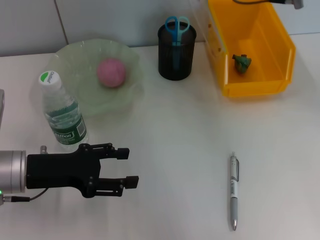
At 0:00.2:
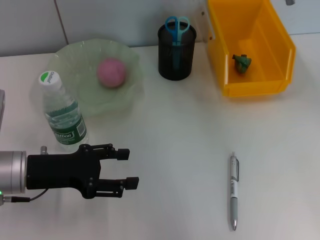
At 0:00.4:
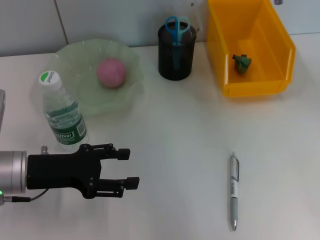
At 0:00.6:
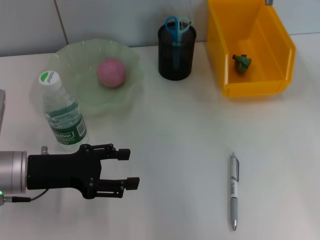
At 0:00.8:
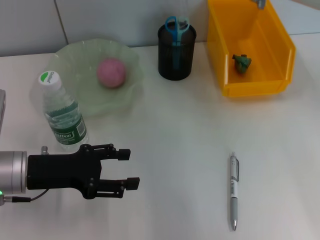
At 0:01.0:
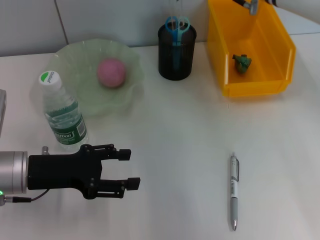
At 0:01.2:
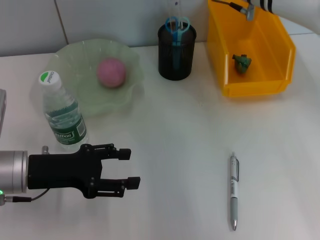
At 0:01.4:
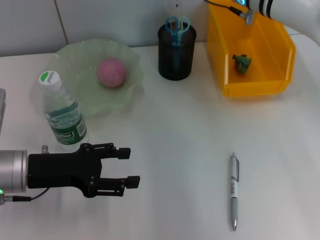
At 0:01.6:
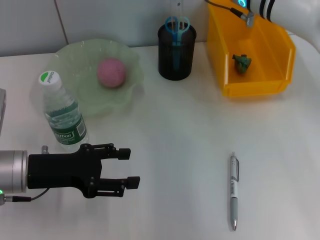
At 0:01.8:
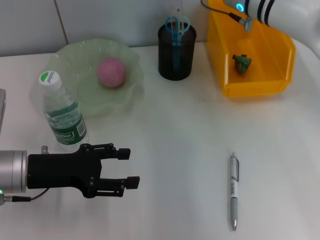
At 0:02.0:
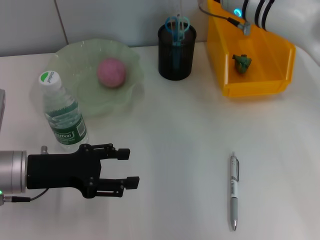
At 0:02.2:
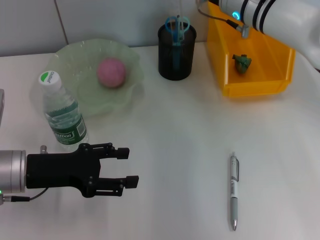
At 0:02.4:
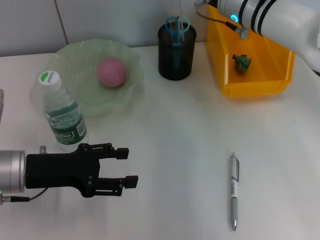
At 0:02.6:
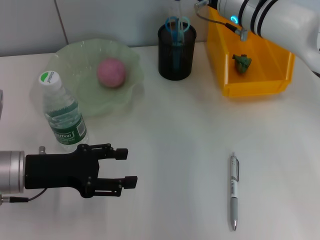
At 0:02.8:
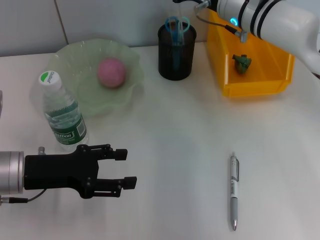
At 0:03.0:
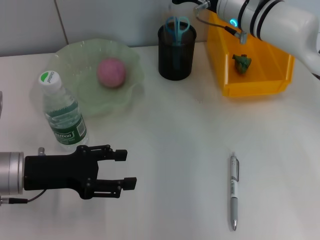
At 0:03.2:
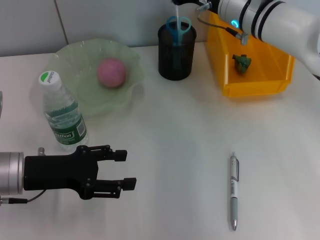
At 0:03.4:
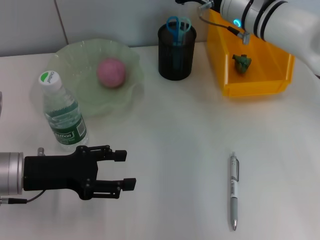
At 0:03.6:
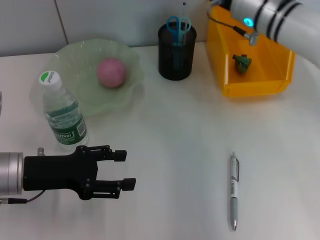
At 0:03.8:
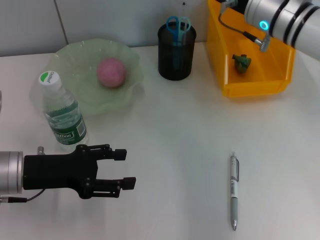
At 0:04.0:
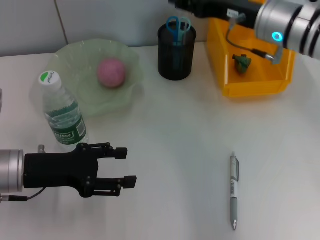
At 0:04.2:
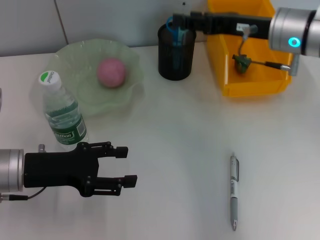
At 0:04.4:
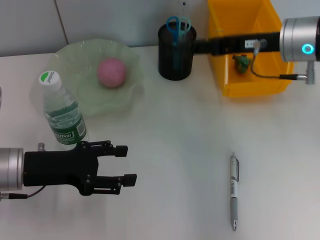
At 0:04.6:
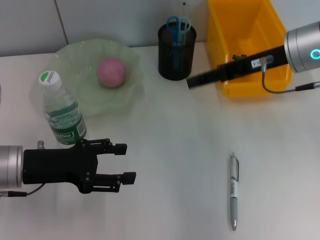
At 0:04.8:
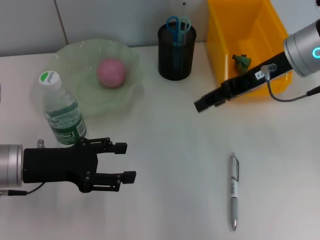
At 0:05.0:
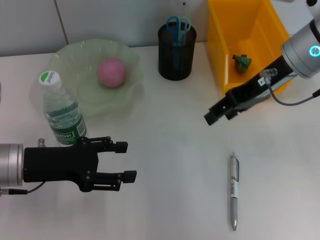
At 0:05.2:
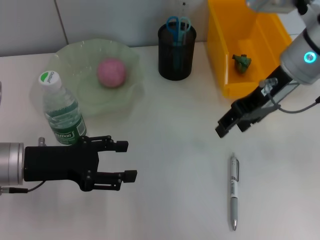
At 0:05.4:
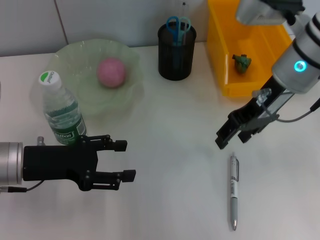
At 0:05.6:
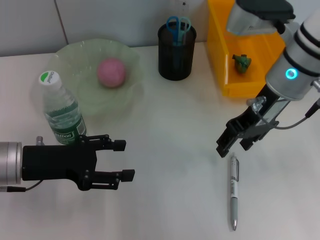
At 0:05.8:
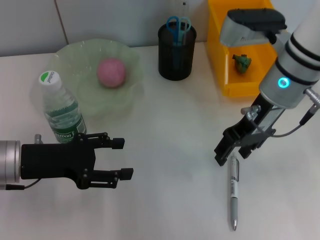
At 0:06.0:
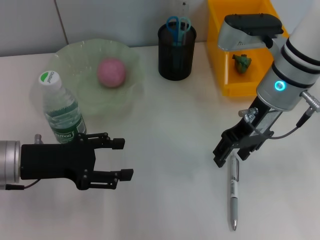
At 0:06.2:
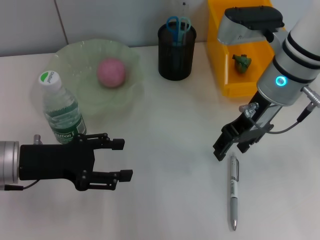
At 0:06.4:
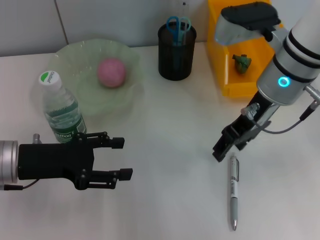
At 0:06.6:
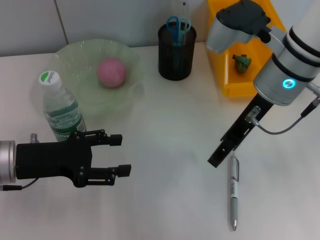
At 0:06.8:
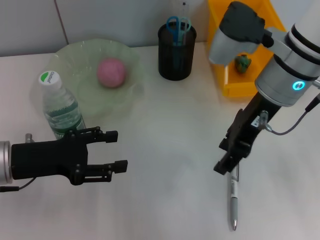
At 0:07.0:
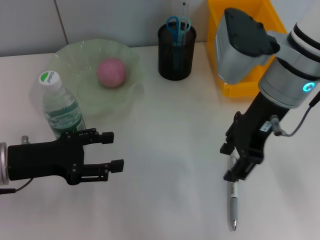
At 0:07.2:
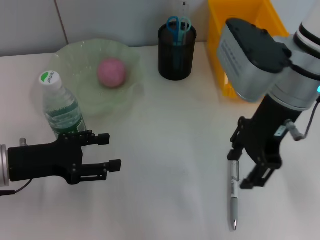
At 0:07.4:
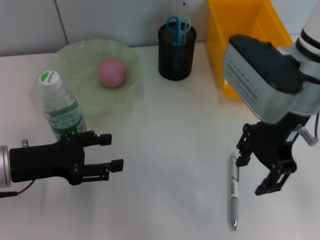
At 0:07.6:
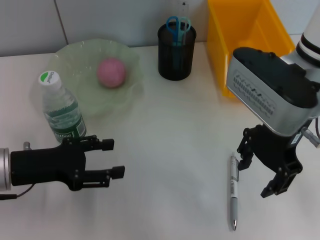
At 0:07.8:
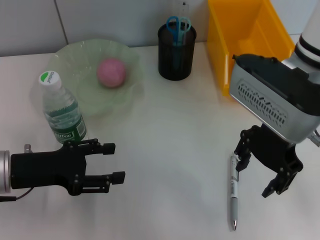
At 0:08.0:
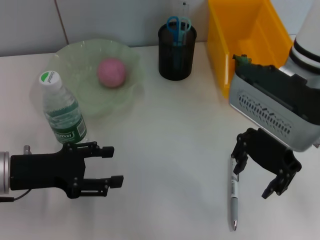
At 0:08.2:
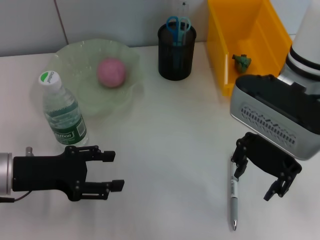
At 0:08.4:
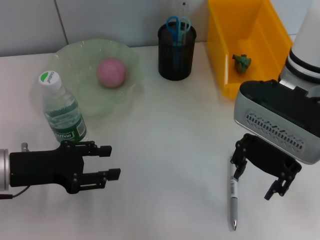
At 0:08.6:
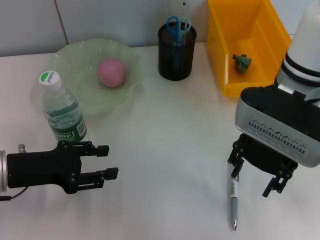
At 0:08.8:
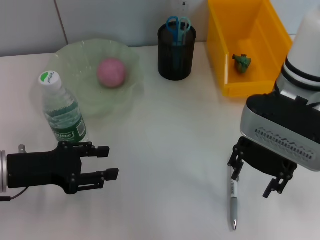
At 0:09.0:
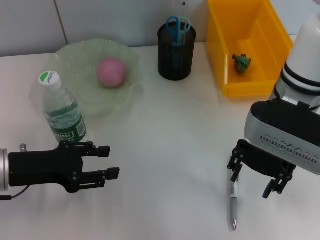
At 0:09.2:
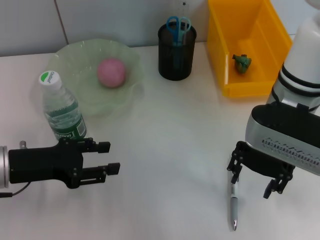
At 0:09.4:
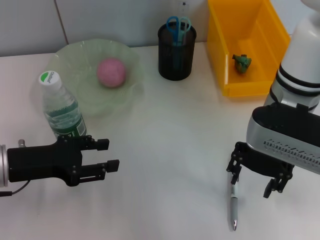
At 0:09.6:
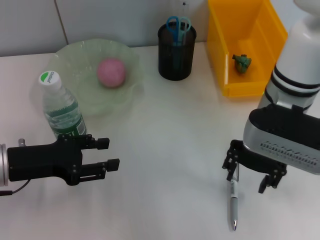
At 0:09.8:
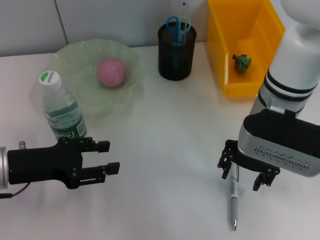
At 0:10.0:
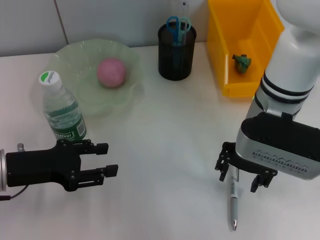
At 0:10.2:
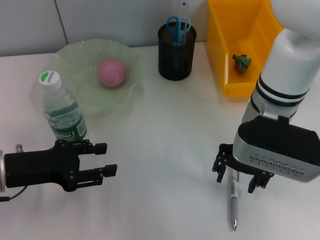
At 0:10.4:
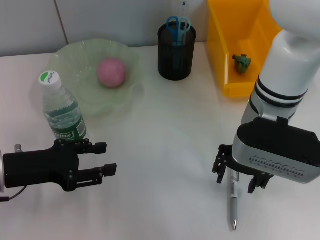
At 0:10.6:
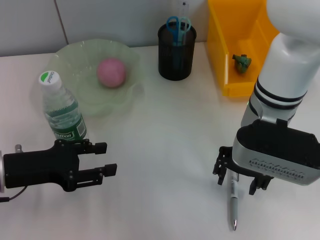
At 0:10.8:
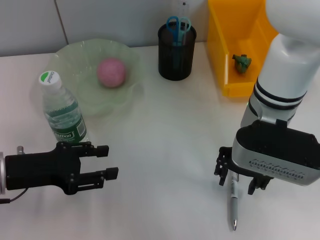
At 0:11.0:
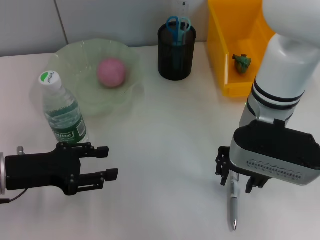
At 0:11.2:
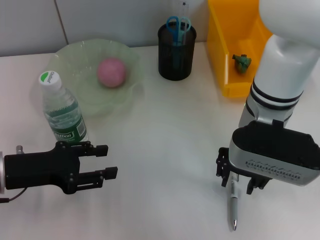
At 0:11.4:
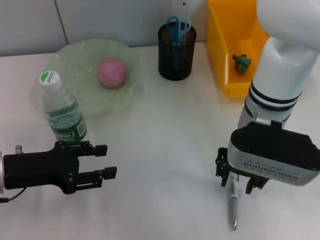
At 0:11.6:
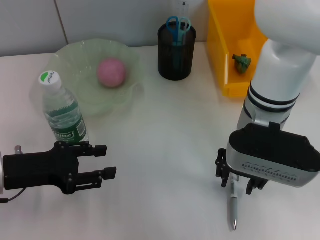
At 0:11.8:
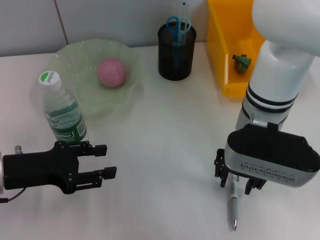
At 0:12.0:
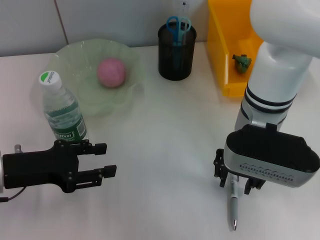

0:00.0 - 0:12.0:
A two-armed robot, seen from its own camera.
Step, 0:00.0 - 0:03.6: Place the ruler into the pen holder with the right hand.
0:00.0 - 0:01.6: The right gripper heads downward, covering some 10 cm.
0:01.6 - 0:03.0: The grippers make only small movements.
0:03.0 - 0:04.4: The right gripper heads backward and to the right, covering some 10 cm.
0:04.4 - 0:06.0: The right gripper goes about 5 cm to the left.
0:06.0 - 0:07.6: The right gripper ends up about 5 cm from where it was.
0:09.0 - 0:10.4: The grippers make only small movements.
0:10.4 - 0:12.0: The two grippers keep their place.

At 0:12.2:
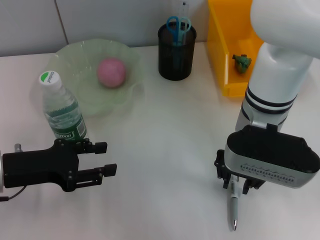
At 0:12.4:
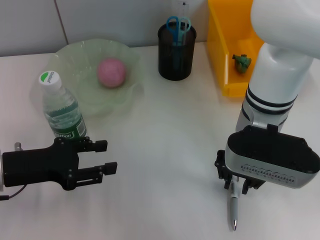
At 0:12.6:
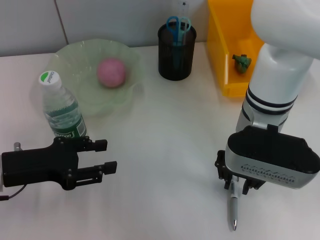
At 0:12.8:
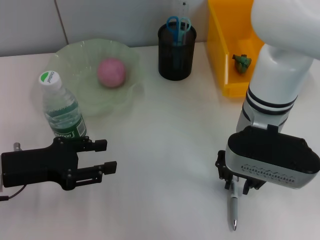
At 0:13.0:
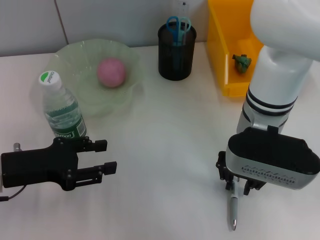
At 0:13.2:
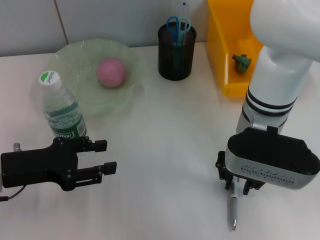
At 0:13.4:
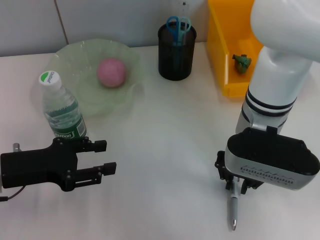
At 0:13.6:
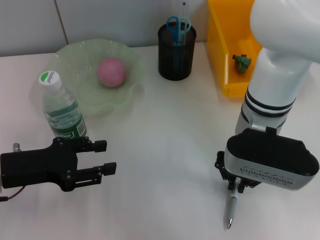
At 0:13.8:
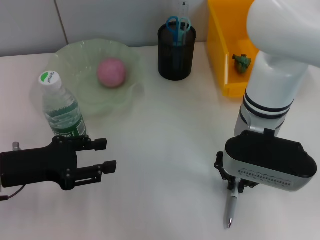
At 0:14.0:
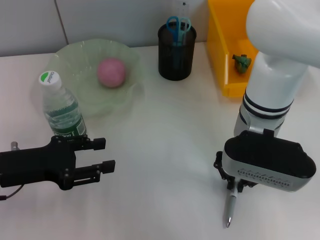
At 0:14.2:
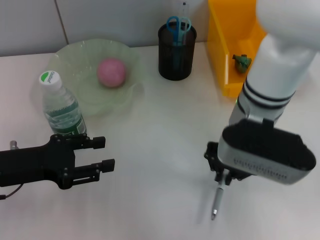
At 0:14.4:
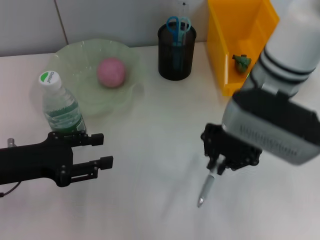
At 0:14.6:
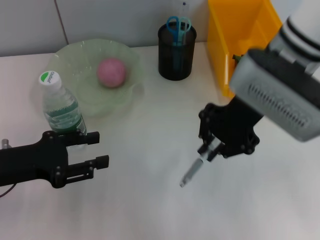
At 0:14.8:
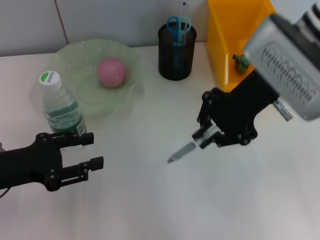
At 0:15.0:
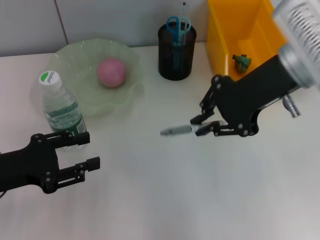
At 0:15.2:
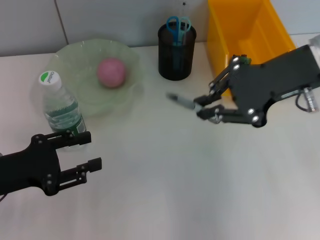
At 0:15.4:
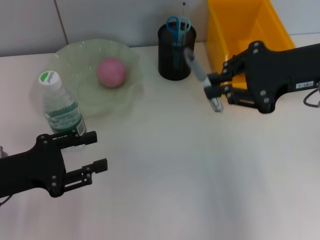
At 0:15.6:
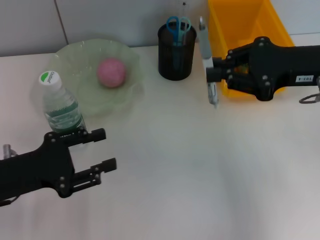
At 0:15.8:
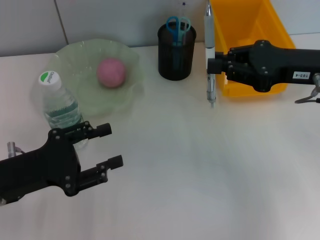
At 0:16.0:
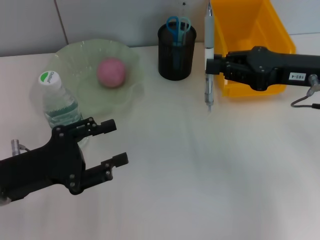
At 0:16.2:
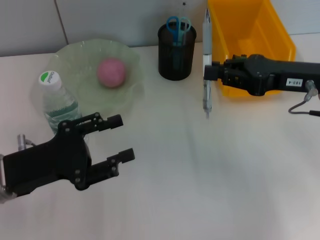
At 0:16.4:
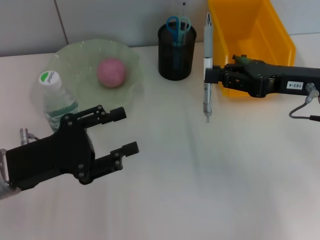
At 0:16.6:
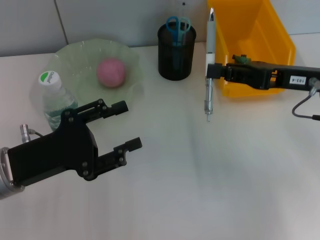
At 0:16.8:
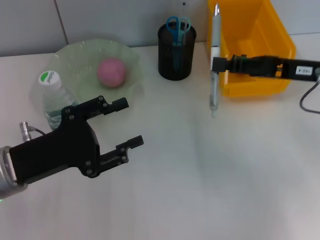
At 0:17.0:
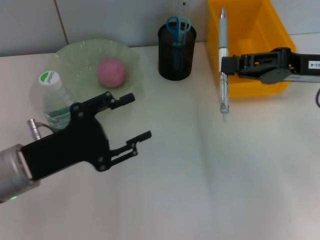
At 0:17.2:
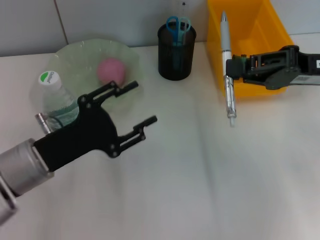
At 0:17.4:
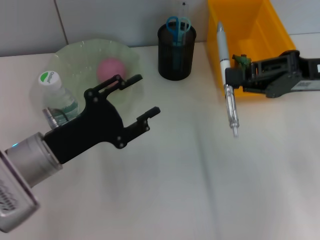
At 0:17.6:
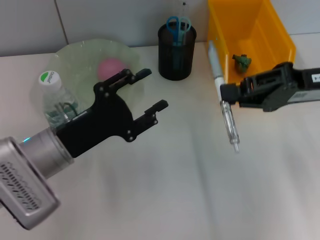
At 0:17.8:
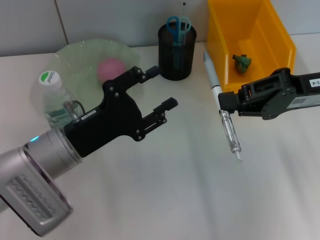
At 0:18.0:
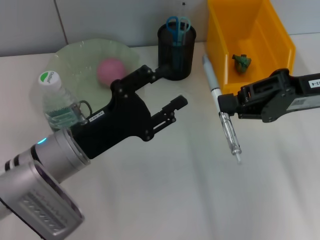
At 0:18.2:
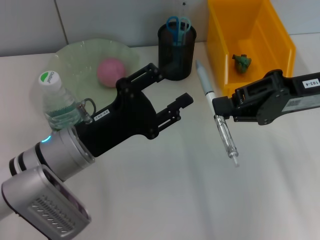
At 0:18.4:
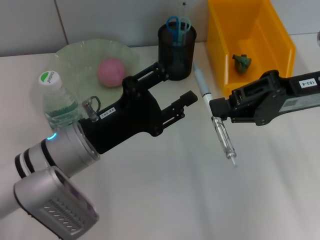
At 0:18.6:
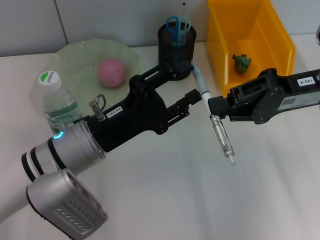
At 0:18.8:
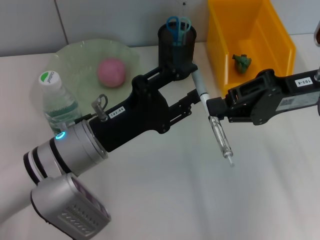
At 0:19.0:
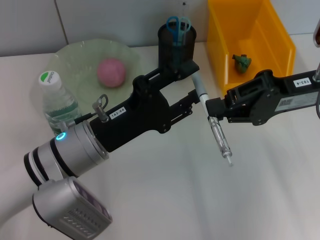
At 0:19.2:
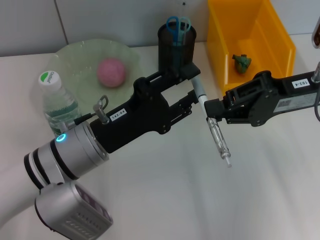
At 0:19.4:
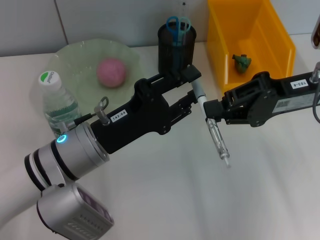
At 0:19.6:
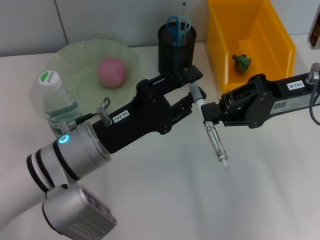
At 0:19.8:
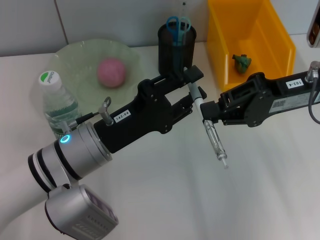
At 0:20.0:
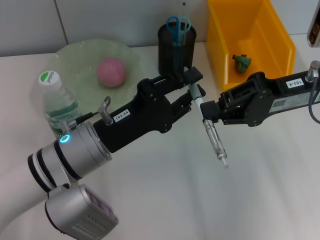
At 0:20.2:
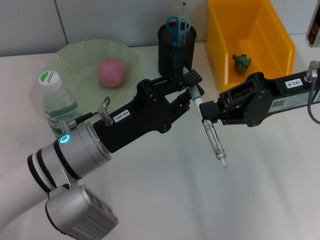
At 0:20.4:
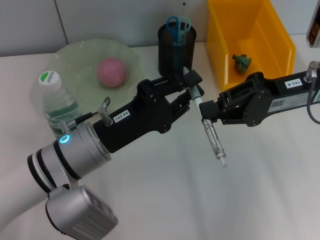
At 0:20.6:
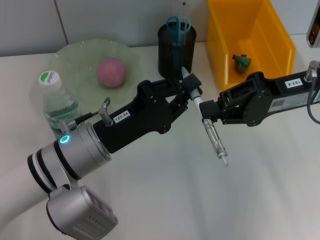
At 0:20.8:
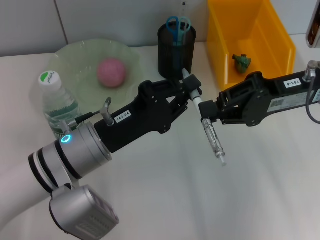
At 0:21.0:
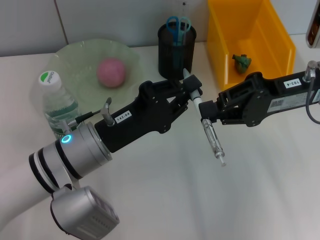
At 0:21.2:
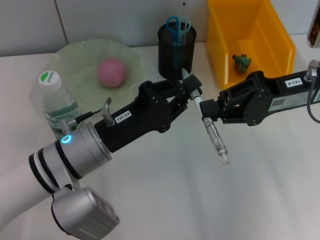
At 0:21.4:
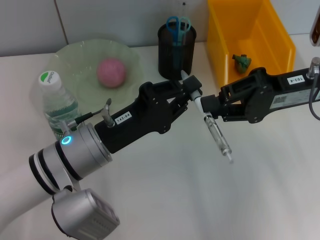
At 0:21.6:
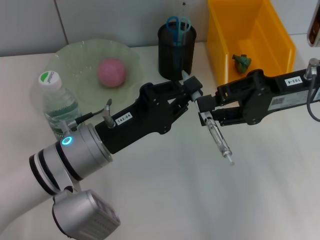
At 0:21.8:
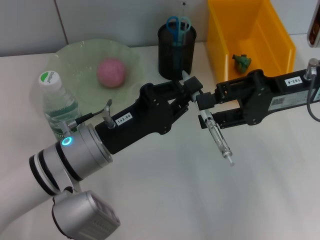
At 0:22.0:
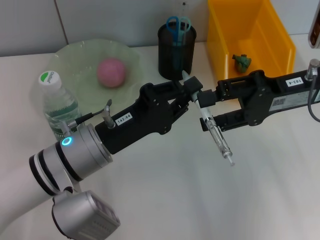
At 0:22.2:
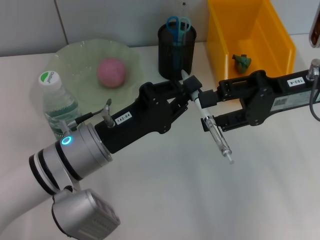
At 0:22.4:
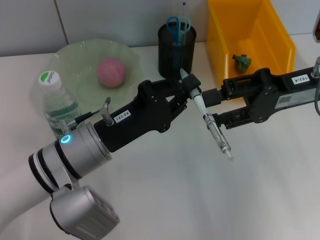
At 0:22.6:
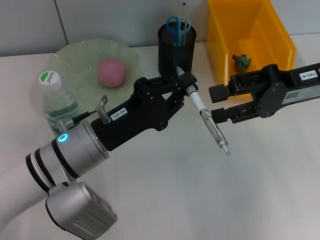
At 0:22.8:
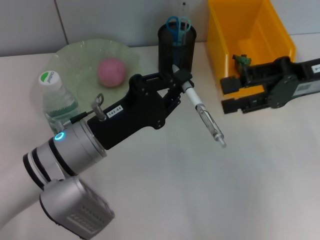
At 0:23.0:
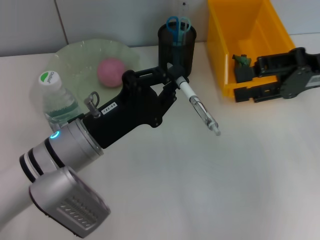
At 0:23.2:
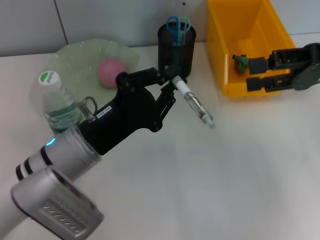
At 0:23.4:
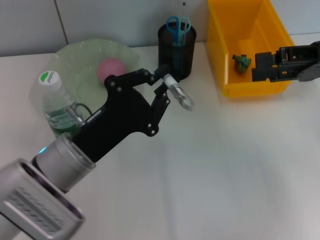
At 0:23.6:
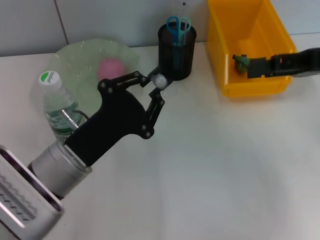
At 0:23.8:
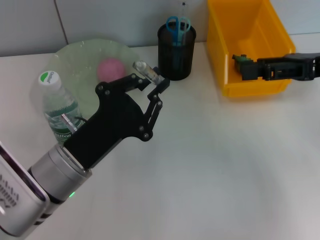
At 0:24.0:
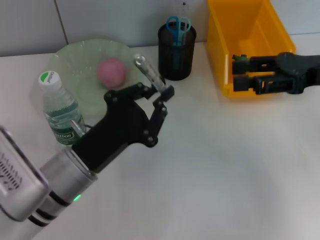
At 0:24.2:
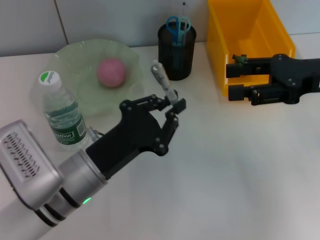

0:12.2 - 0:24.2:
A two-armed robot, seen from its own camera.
Step, 0:14.0 - 0:22.6: Pass the gray spring-action pen from the right hand to the left hand.
0:12.2 - 0:13.8: The right gripper closes.
0:13.8 - 0:15.2: The right gripper shifts approximately 15 cm upward and to the right.
0:15.2 - 0:16.6: The right gripper moves downward, some 10 cm; the left gripper goes approximately 5 cm to the right.
0:16.6 - 0:18.2: The left gripper heads to the right, covering some 10 cm.
0:18.2 - 0:19.8: The grippers stay close to where they were, moving slightly.
0:19.8 - 0:21.2: The left gripper closes its fingers.
0:21.2 - 0:22.6: The right gripper opens its fingers.
